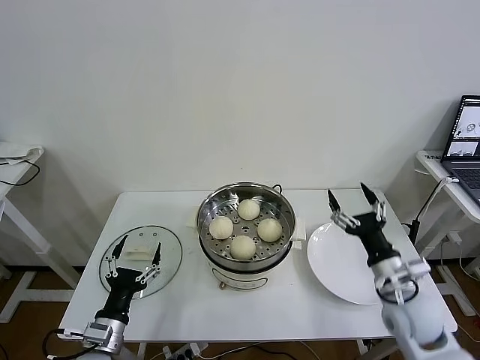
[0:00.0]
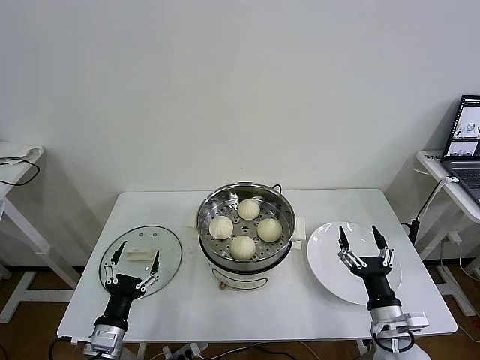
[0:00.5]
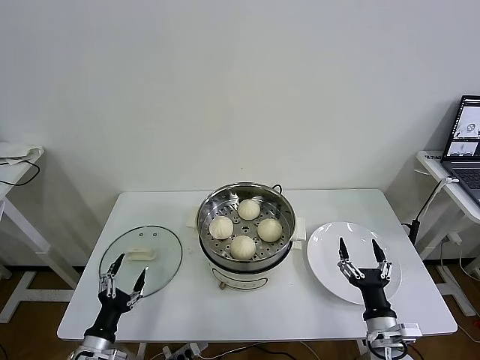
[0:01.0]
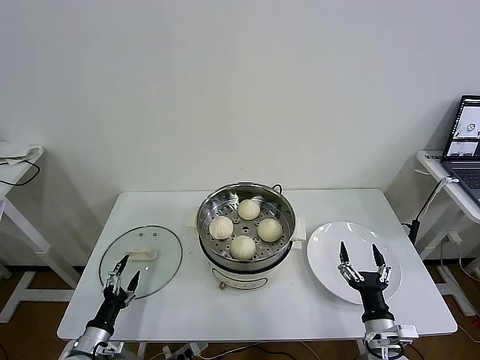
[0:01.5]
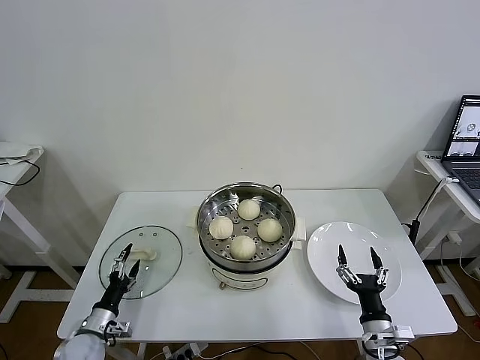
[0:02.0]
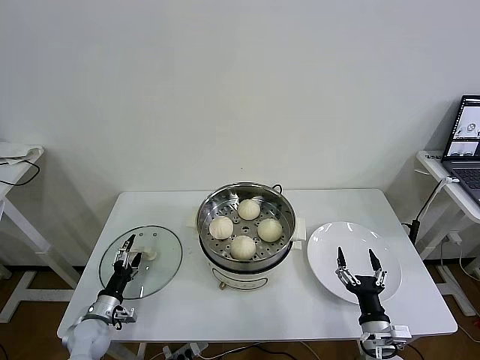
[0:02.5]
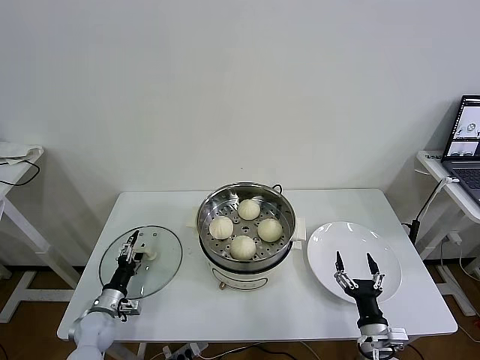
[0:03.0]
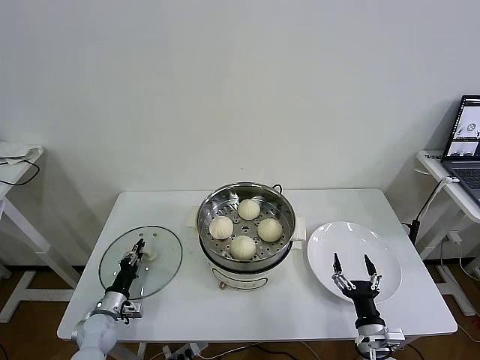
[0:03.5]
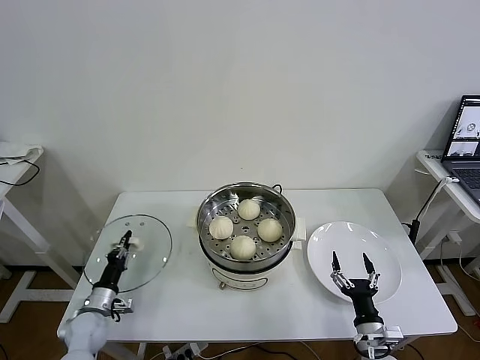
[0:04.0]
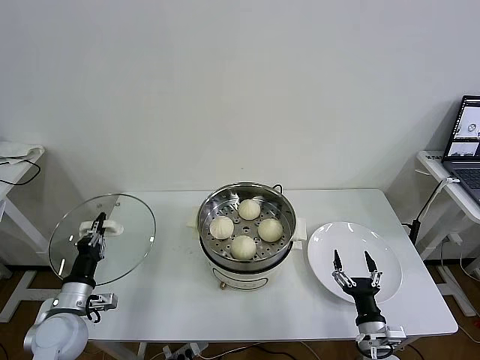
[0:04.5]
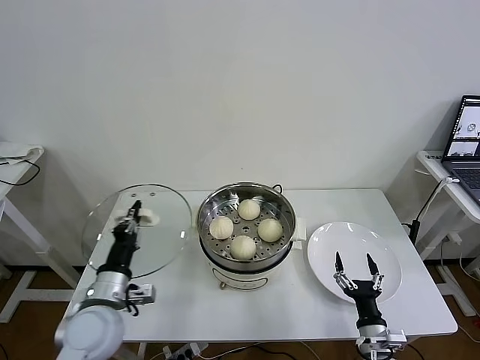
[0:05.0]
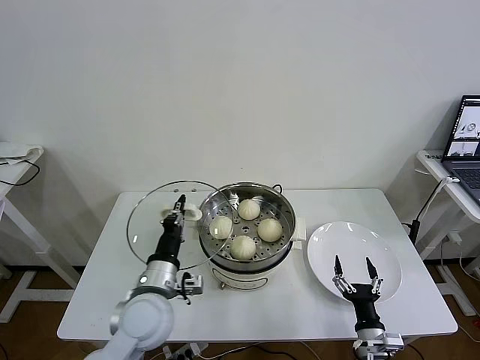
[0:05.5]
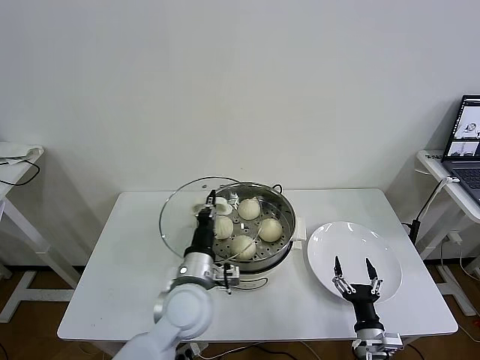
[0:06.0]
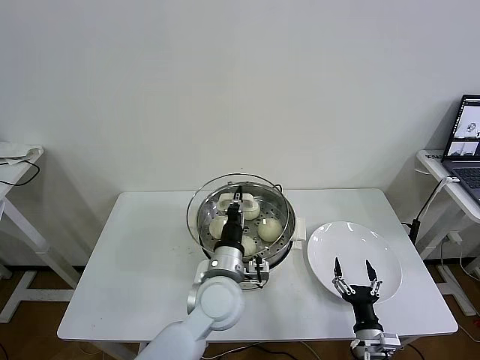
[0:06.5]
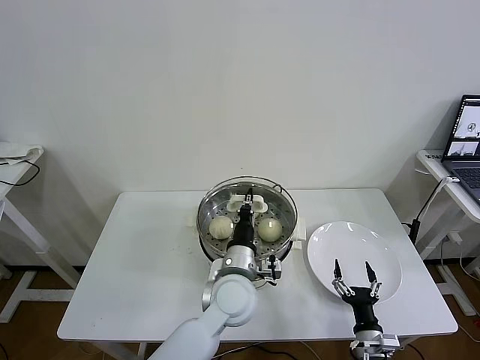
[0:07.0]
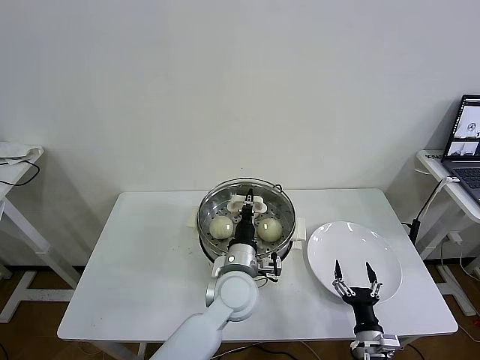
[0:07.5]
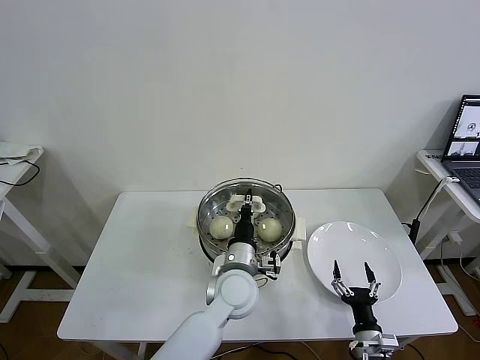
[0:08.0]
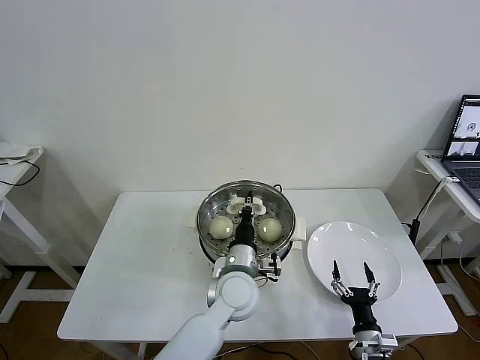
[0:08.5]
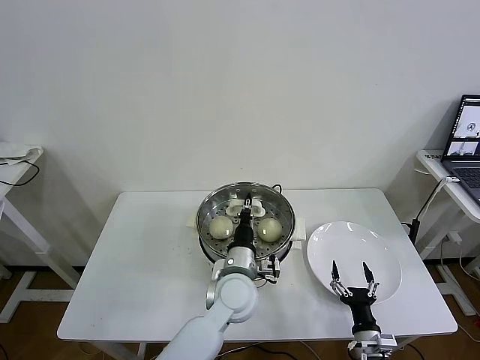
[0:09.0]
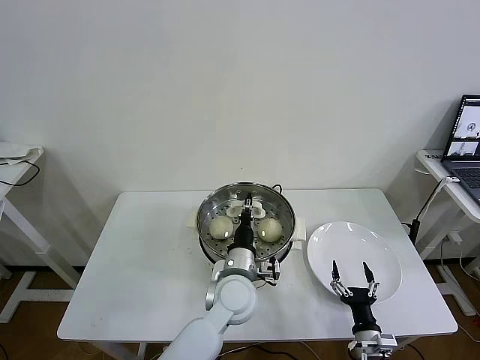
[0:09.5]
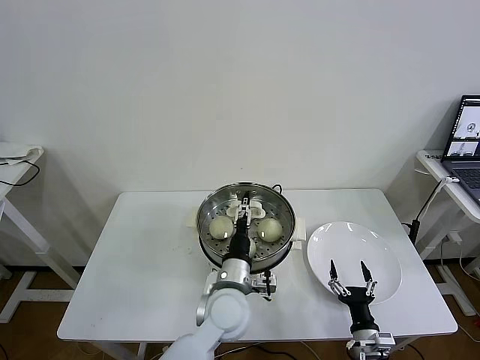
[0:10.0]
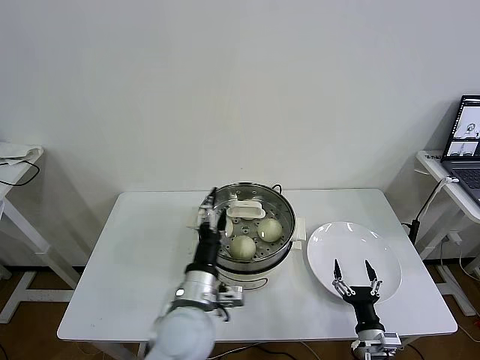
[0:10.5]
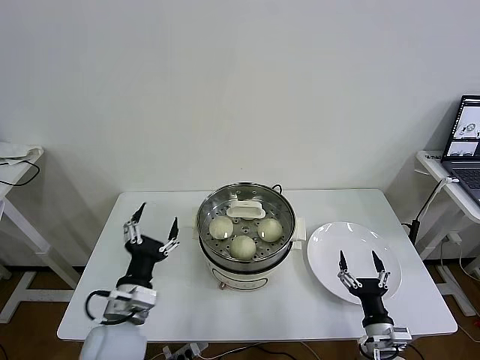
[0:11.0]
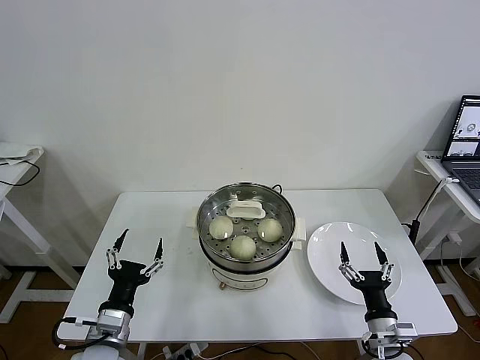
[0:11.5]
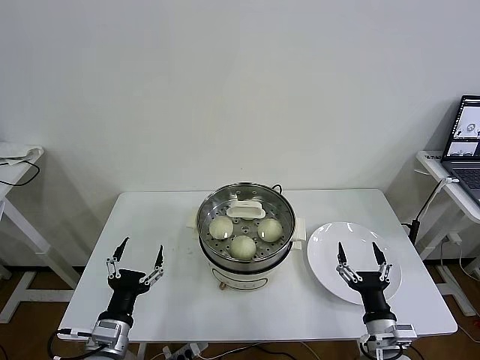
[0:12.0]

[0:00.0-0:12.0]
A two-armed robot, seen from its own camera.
Task of the whole recording: take steamed baozi put them in steamer then cover it.
Step, 0:00.0 to 0:03.5: Grasp the pot lid with left gripper.
Step, 0:04.0 to 0:09.5: Place the pot lid on the steamer with left gripper.
0:00.0 to 0:02.0: The left gripper goes approximately 15 cm downward, to the left and forward. The right gripper heads downward and backward, covering some 15 cm.
0:02.0 to 0:04.0: The left gripper ends up approximately 5 cm from where it was, and closes its fingers.
0:04.0 to 0:06.0: The left gripper shifts some 35 cm to the right and upward.
0:06.0 to 0:08.0: The left gripper travels to the right by about 10 cm.
0:08.0 to 0:10.0: The left gripper opens up.
0:10.0 to 0:12.0: The left gripper is displaced to the left and backward by about 25 cm; the right gripper travels upward by approximately 10 cm.
